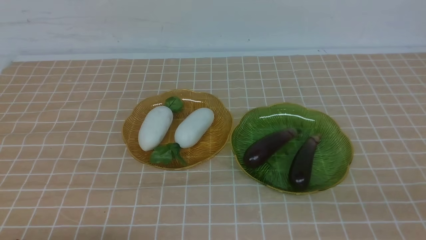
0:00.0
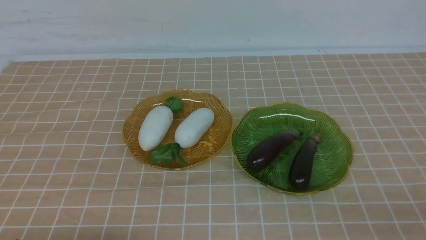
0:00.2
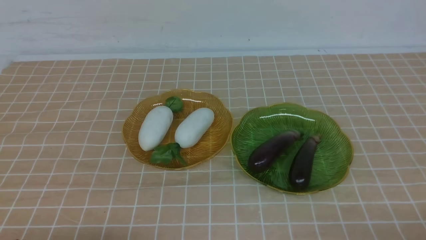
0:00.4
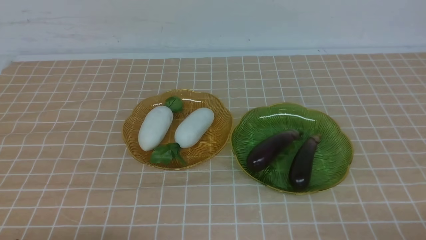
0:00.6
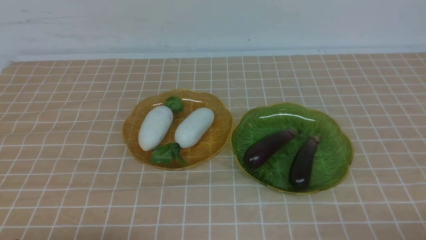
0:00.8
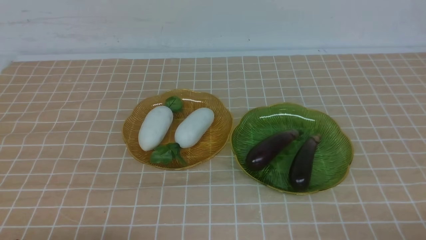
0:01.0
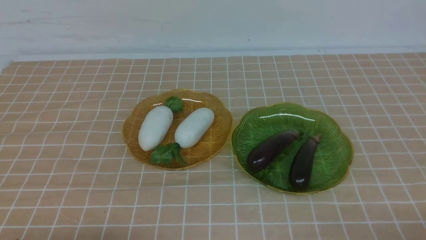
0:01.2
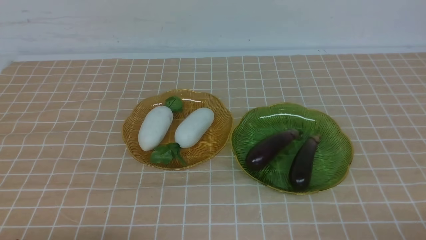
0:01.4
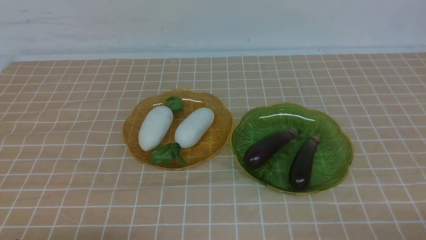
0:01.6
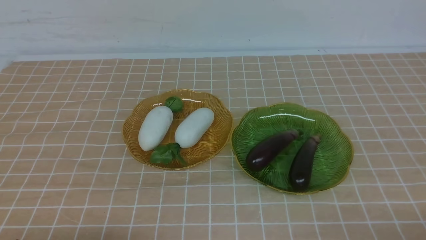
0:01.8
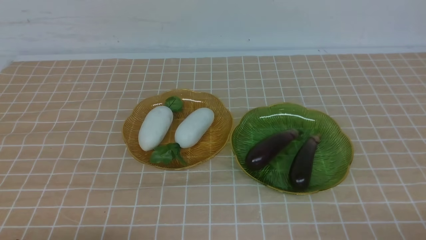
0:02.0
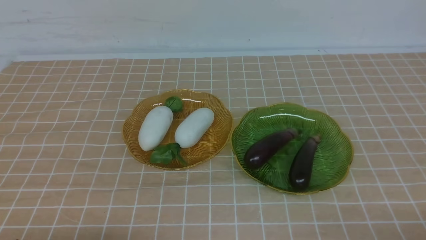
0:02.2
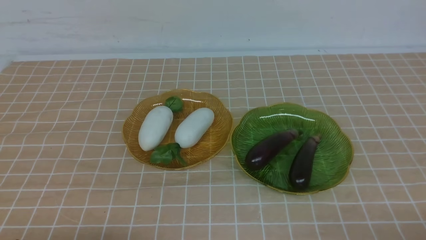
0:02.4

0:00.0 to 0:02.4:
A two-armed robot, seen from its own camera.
0:00.0 to 0:02.4: Both grippers stay about where they are.
